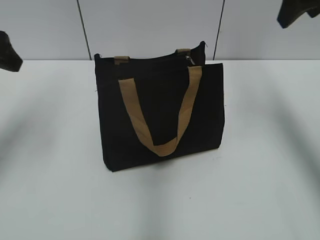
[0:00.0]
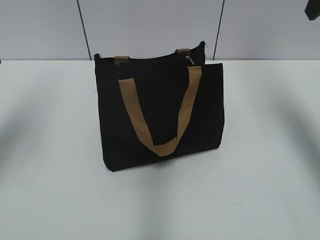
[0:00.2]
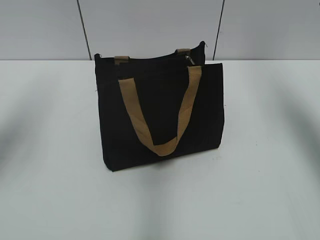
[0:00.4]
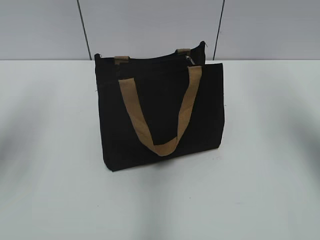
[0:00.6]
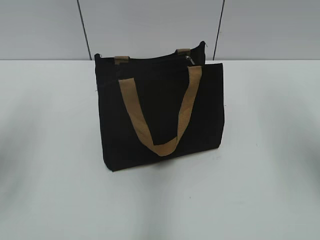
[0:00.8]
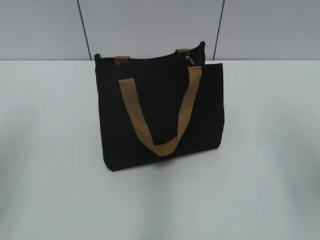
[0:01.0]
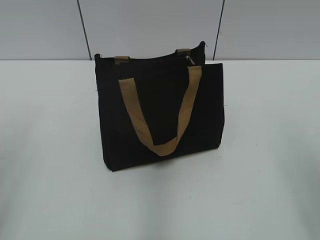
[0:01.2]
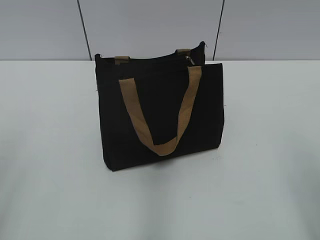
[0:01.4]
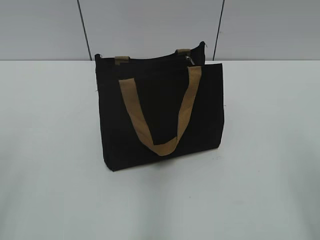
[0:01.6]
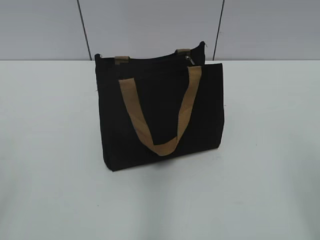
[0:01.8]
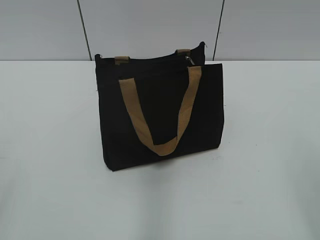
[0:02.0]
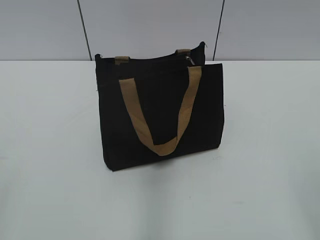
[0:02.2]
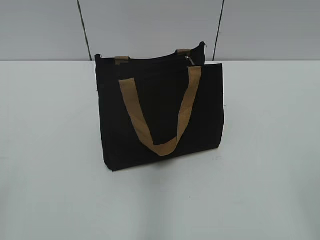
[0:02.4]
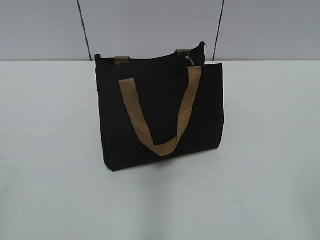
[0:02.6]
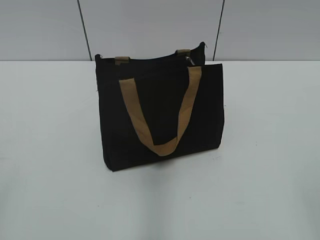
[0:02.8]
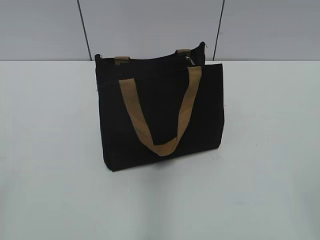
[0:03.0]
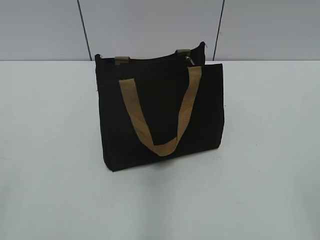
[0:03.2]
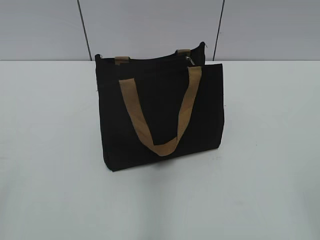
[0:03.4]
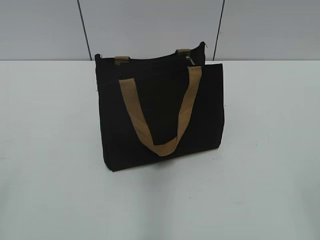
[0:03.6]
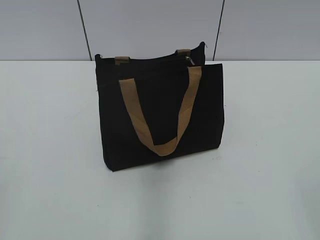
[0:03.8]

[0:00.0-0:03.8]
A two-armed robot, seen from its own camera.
0:00.0 to 0:01.2: The left gripper heads backward, covering roughly 15 cm; the right gripper goes roughly 25 cm backward.
0:02.6 to 0:03.8: Both grippers stay about where they are.

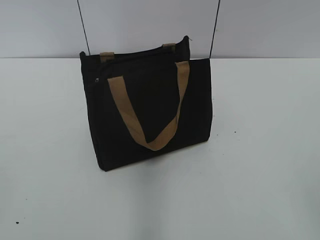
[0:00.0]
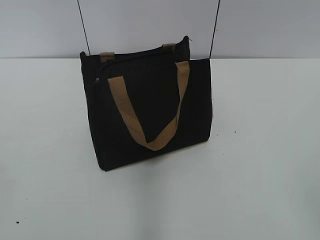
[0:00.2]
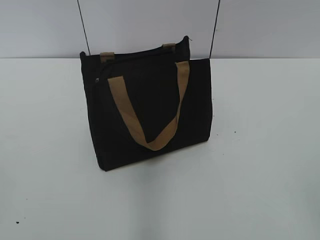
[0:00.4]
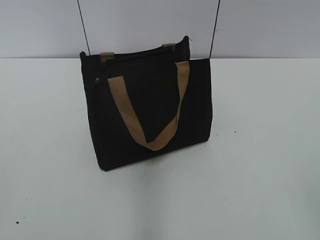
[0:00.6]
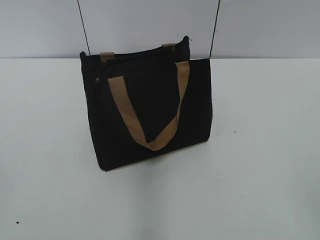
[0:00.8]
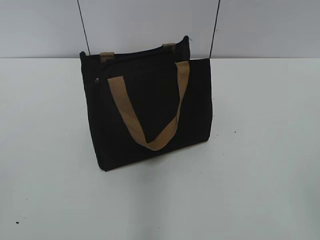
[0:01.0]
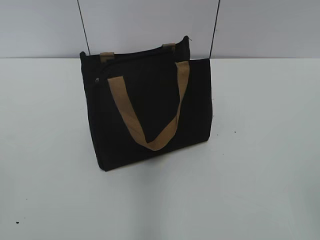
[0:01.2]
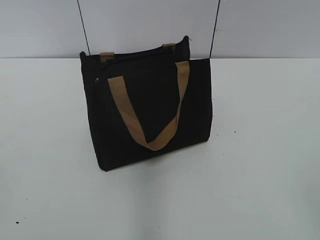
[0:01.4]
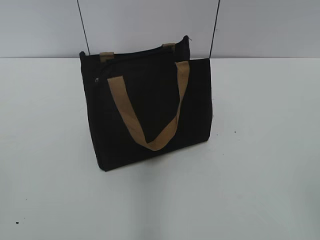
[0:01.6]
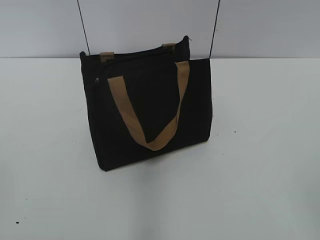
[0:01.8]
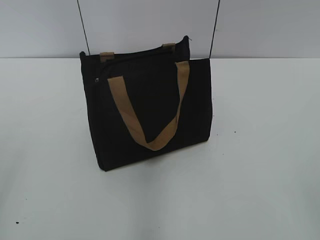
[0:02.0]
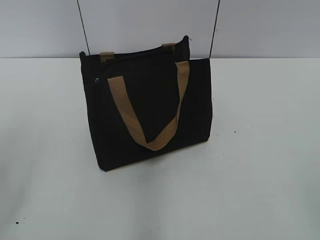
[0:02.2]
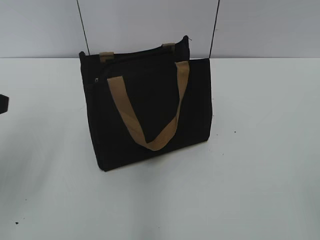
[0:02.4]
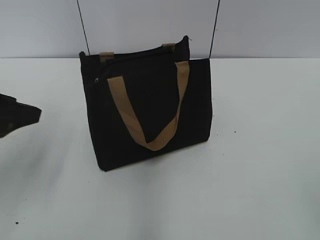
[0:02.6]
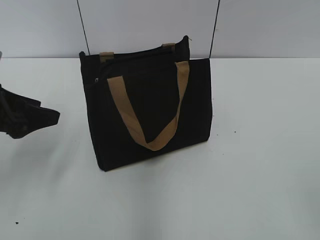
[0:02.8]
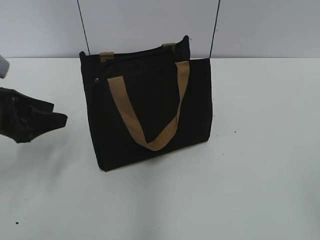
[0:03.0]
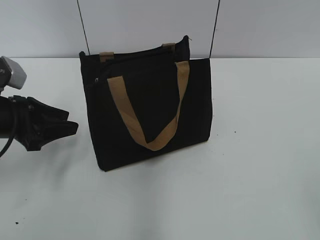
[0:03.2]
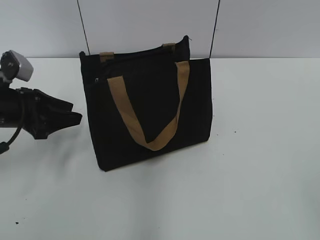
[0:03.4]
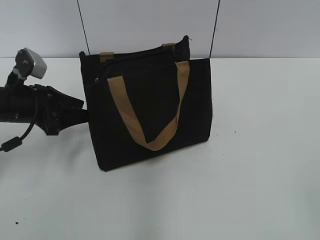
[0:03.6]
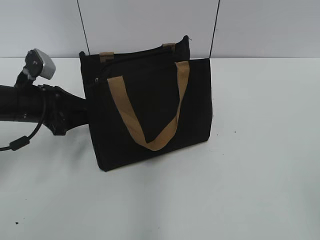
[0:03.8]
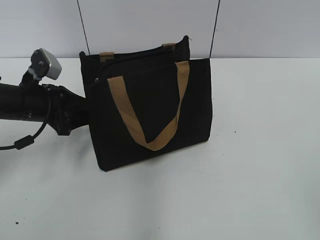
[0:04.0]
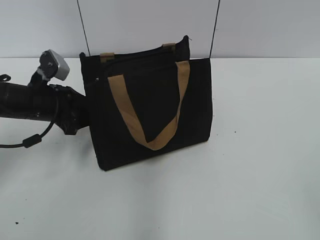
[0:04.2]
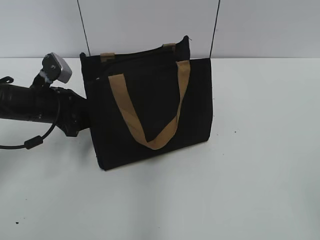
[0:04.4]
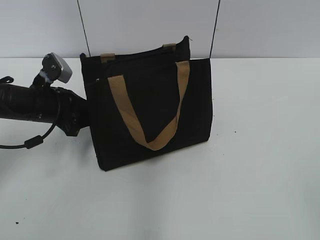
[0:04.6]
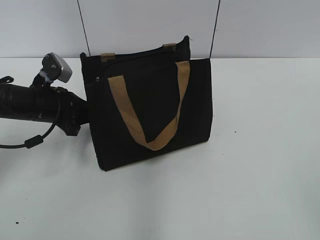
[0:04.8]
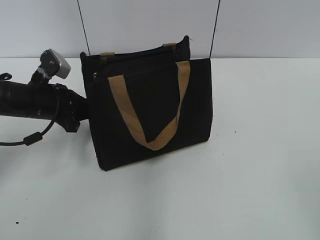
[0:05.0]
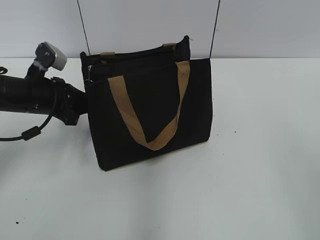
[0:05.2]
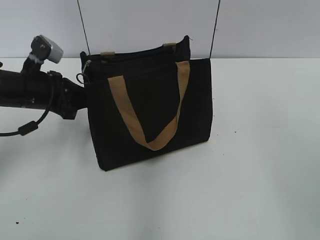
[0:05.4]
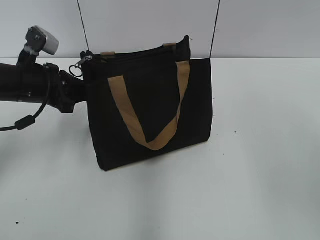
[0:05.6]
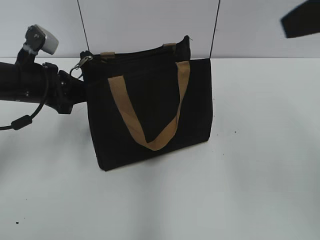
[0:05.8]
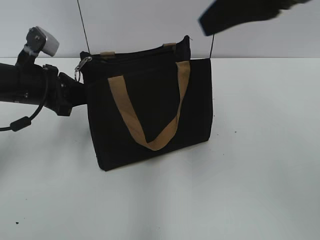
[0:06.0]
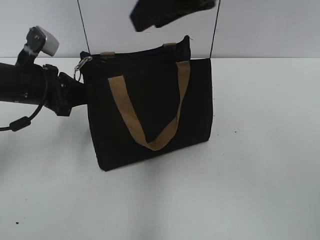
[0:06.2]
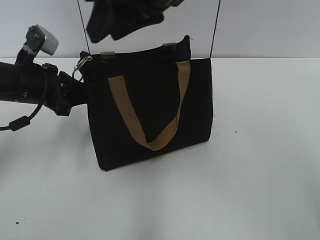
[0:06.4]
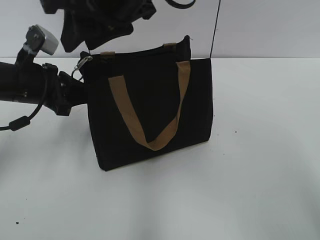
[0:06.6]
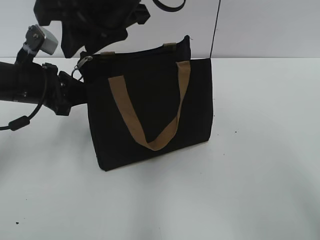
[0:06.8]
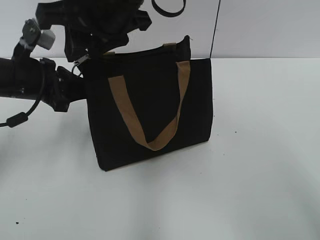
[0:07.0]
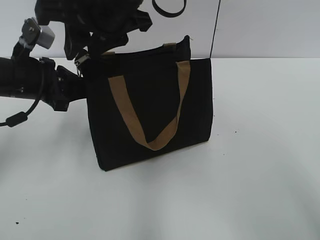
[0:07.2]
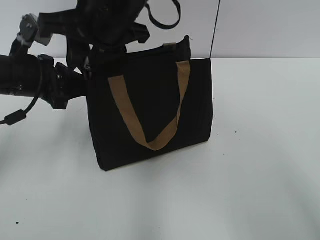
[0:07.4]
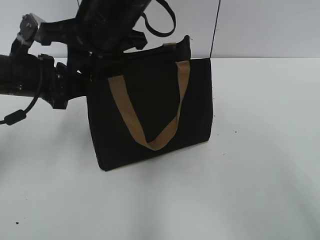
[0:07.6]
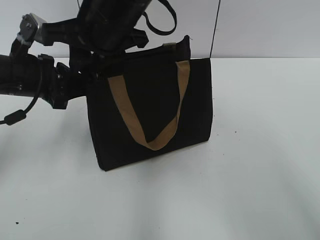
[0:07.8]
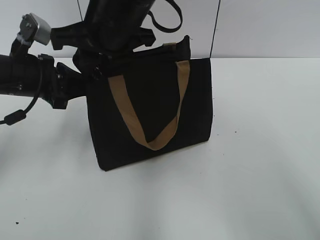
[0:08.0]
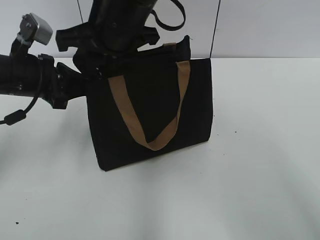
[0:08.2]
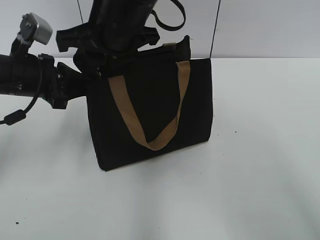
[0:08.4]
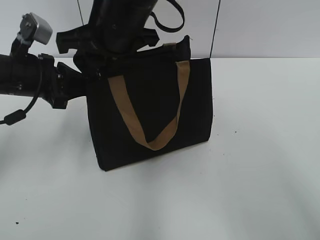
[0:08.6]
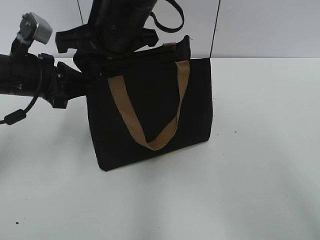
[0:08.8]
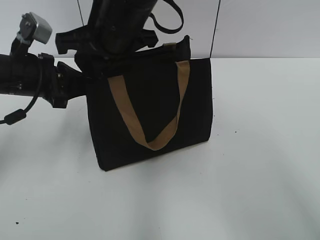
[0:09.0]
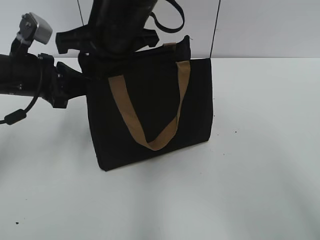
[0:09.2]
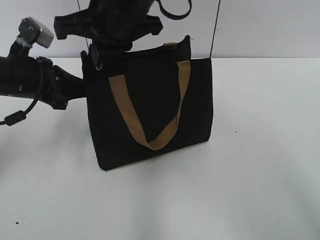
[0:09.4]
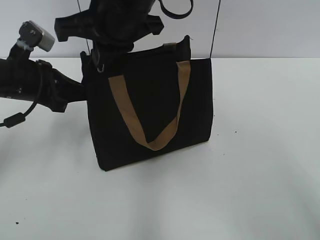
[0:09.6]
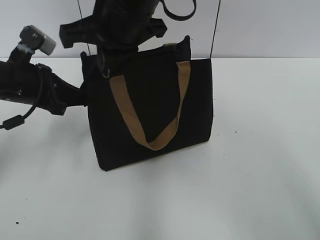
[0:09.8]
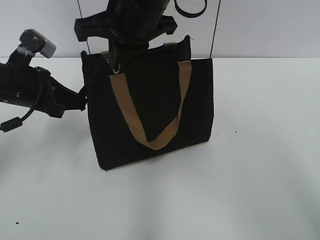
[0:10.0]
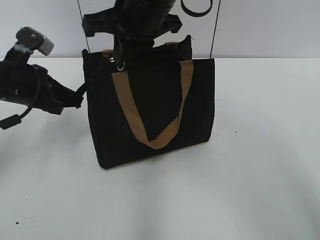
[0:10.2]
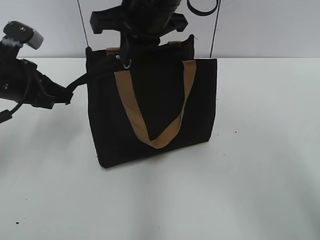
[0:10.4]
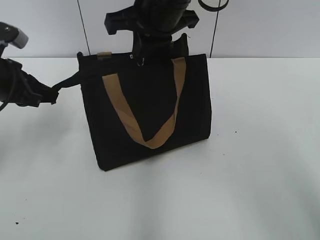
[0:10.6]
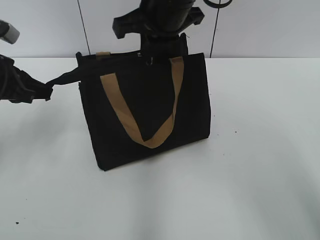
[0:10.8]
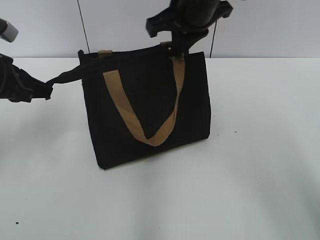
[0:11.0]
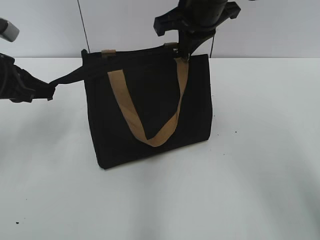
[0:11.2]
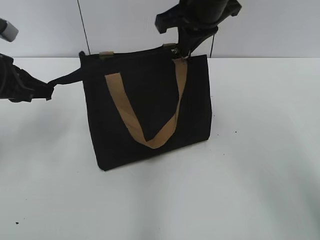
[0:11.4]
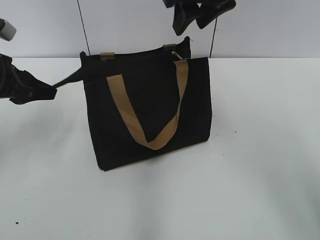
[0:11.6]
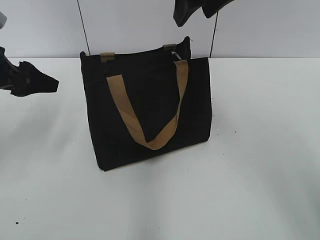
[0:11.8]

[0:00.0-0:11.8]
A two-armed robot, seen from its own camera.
Step, 0:00.0 to 0:11.4: Zip up the bag with your right hand.
0:01.4 to 0:03.0: The left gripper is displaced forward by roughly 25 cm.
0:03.0 to 0:04.4: The left gripper moves forward, downward and to the right, about 10 cm.
0:04.4 to 0:06.0: The left gripper is displaced upward by about 5 cm, and closes its fingers. Meanwhile the right gripper shifts about 30 cm forward, to the left and upward, and closes its fingers.
0:06.0 to 0:07.4: The right gripper heads to the left, forward and downward, covering about 25 cm.
0:07.4 to 0:08.8: The grippers stay close to where they were, moving slightly.
0:08.8 to 0:10.4: The right gripper moves approximately 5 cm, and closes.
0:10.4 to 0:11.8: The left gripper opens; the right gripper shifts approximately 10 cm to the right and upward, and opens its fingers.

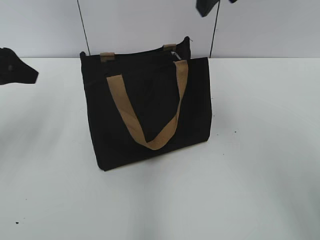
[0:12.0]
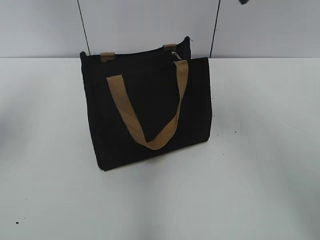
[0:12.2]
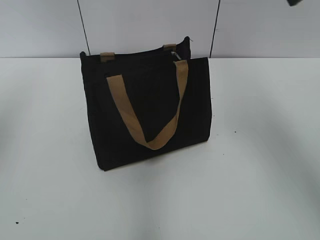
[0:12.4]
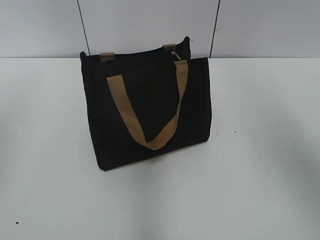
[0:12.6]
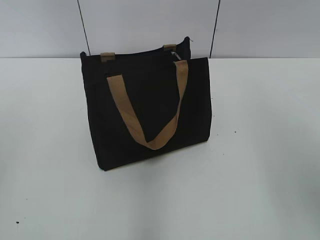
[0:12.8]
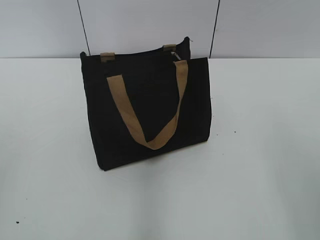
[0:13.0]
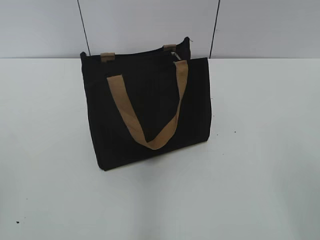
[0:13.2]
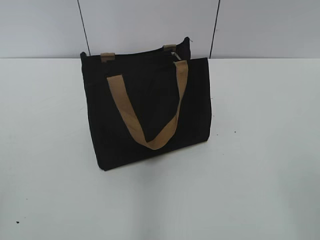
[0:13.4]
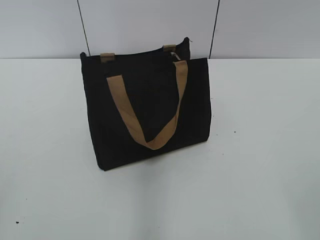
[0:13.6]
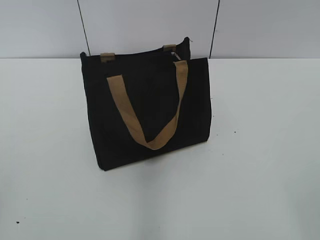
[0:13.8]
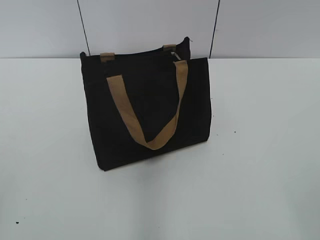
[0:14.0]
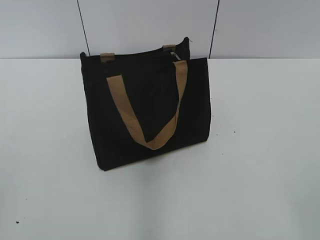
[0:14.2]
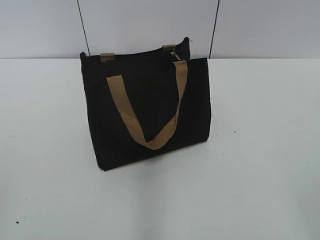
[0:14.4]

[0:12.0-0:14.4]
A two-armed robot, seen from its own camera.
0:12.0 to 0:13.2: The left gripper is displaced backward by some 25 cm.

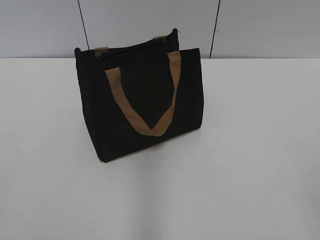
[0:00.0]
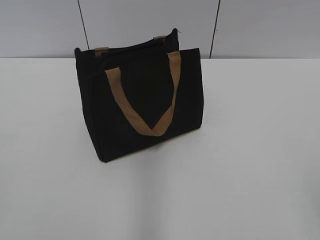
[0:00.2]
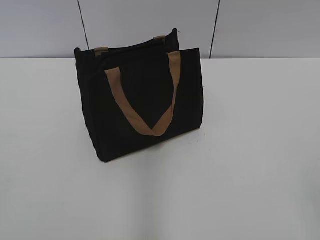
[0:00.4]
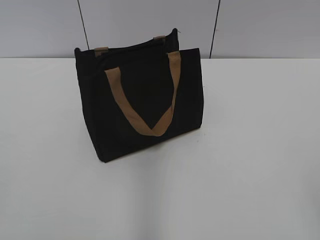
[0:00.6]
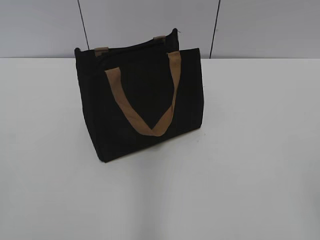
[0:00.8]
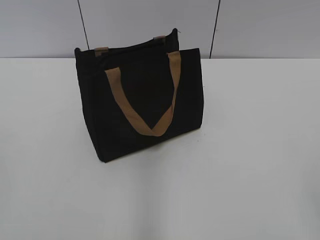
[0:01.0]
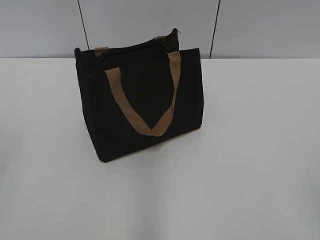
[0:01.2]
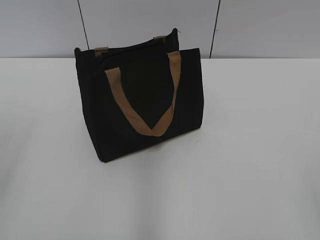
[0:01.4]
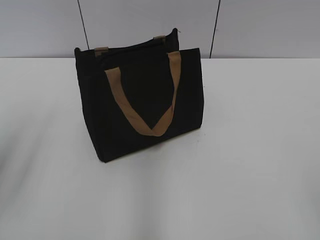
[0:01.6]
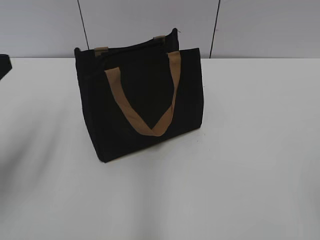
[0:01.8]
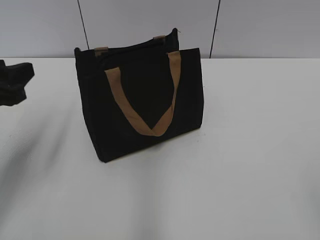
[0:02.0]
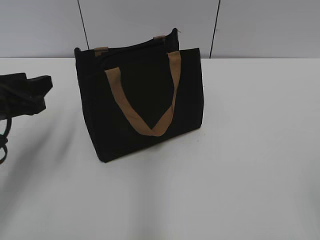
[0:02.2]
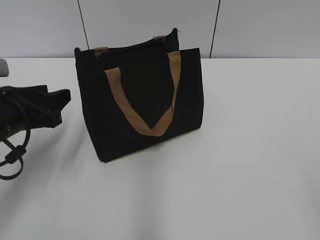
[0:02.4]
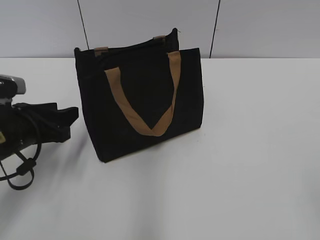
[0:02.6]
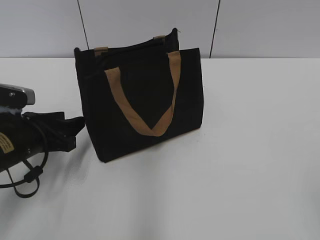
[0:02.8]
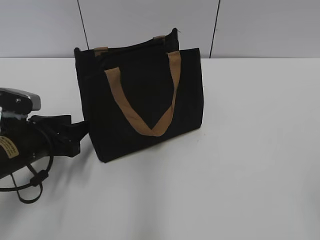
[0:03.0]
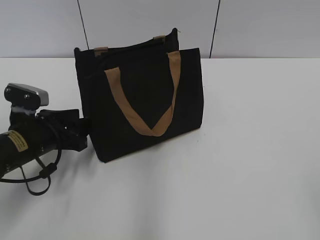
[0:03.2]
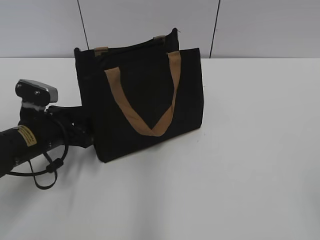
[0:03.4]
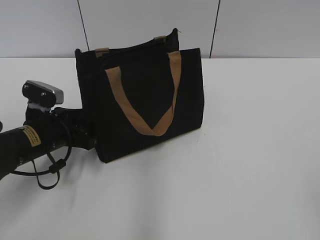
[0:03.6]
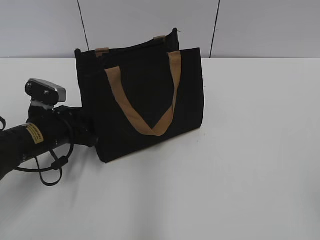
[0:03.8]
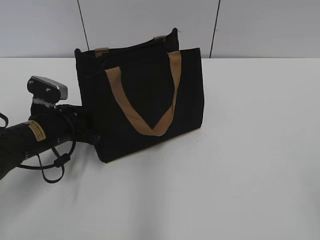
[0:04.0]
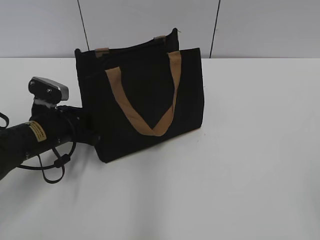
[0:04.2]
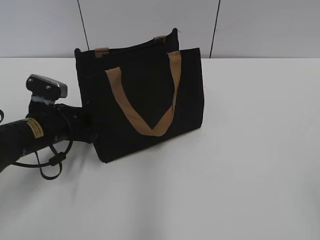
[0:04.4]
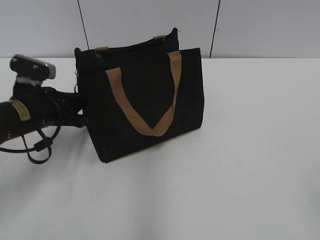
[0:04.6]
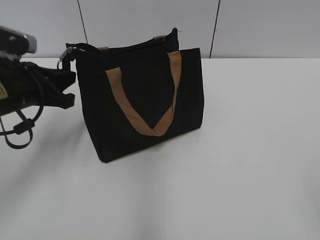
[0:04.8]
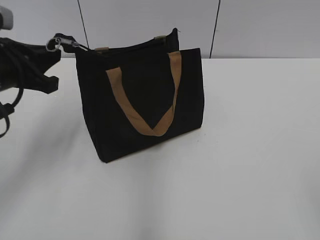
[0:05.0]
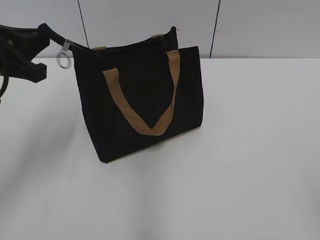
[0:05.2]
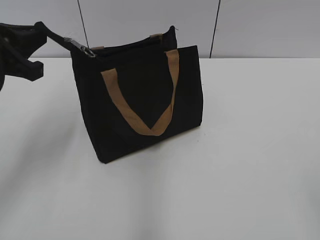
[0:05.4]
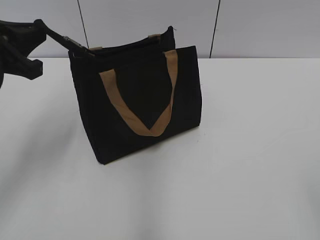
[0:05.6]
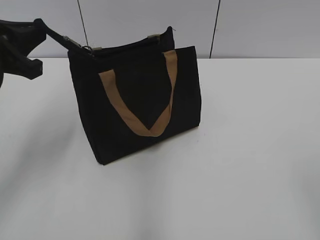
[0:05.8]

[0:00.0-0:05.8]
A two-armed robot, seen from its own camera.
0:01.4 to 0:02.8: The left gripper shifts approximately 25 cm downward and forward.
0:02.8 to 0:04.4: The left gripper ends up approximately 5 cm from where it was, and closes its fingers.
0:04.4 to 0:05.8: The left gripper goes roughly 15 cm upward.
